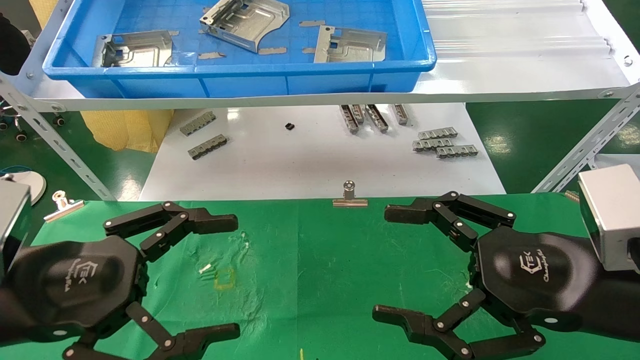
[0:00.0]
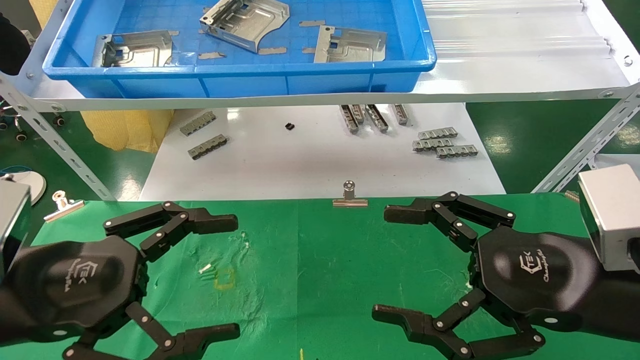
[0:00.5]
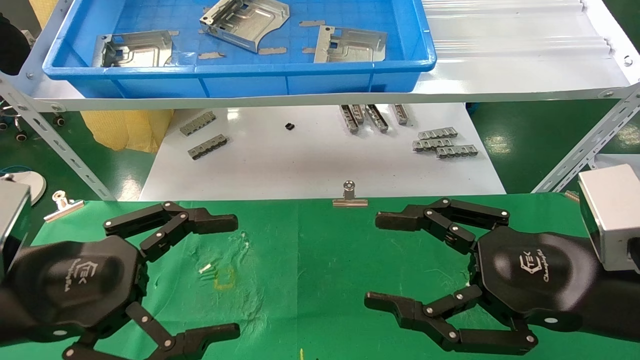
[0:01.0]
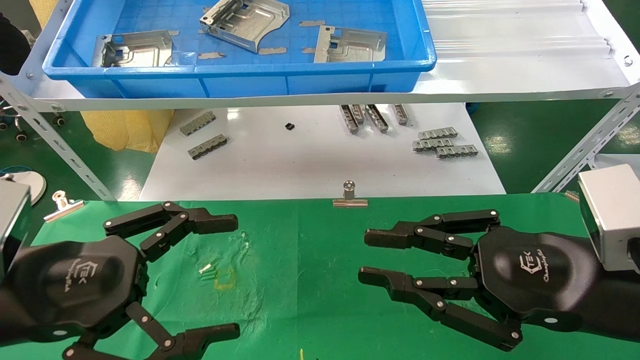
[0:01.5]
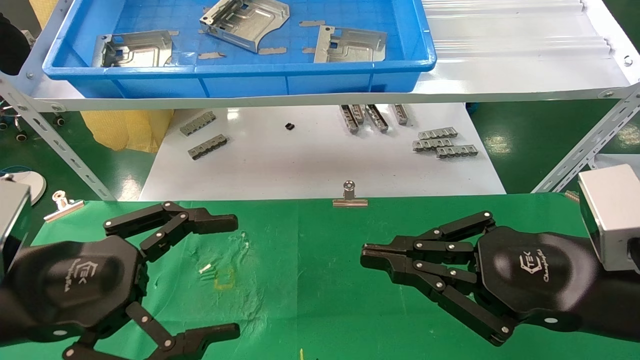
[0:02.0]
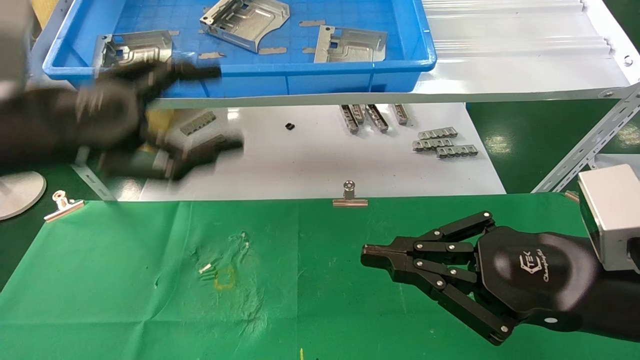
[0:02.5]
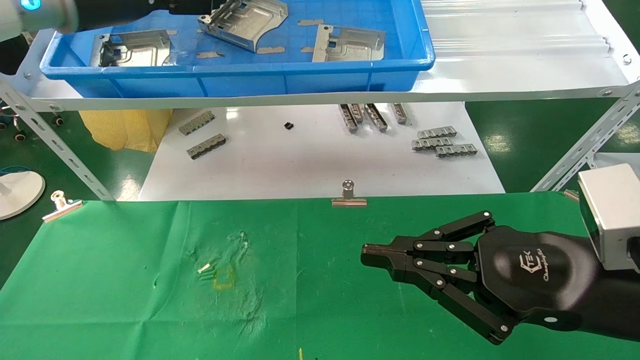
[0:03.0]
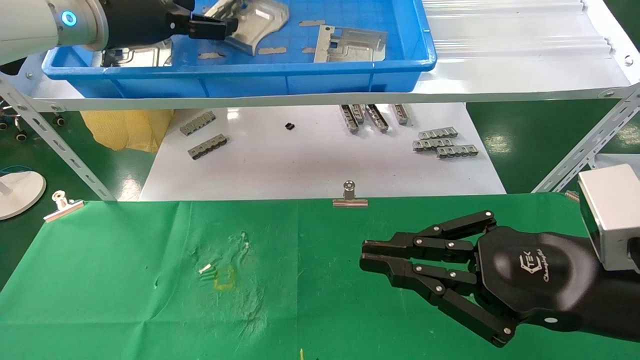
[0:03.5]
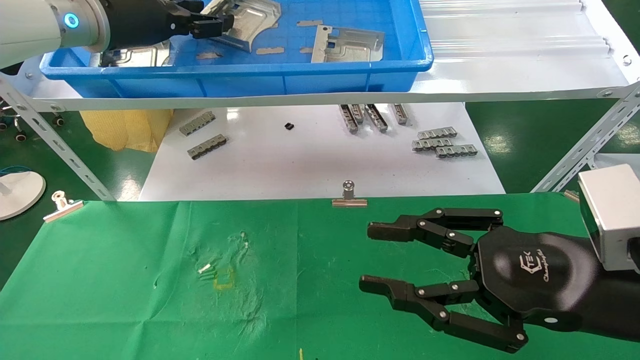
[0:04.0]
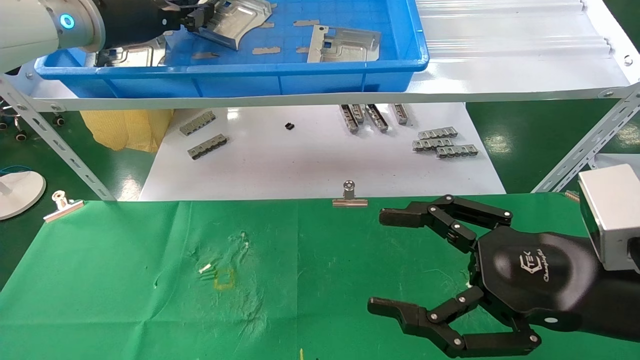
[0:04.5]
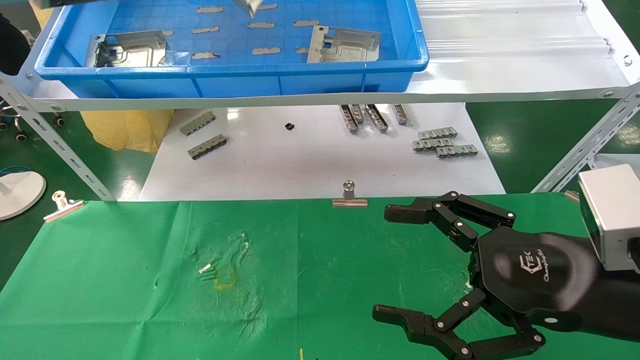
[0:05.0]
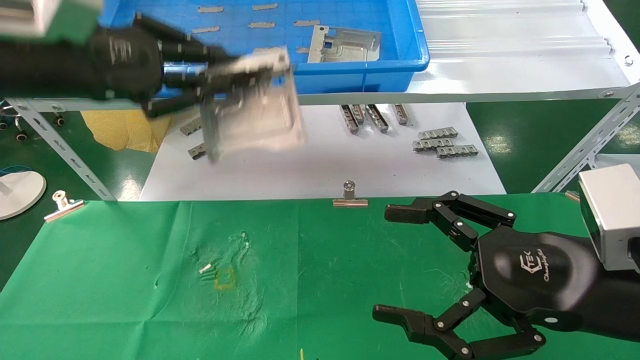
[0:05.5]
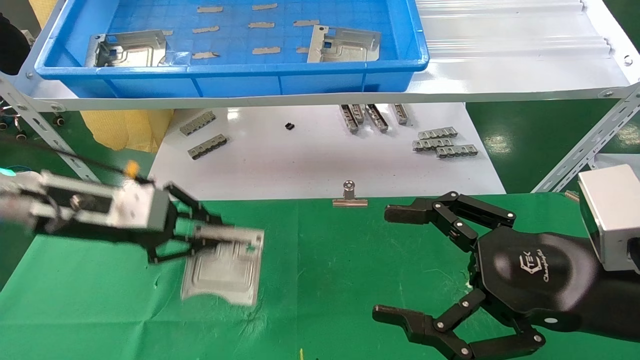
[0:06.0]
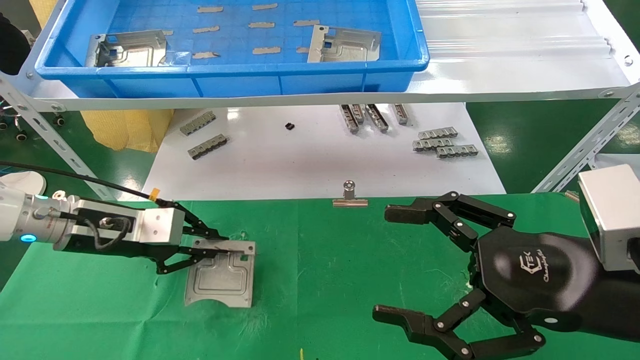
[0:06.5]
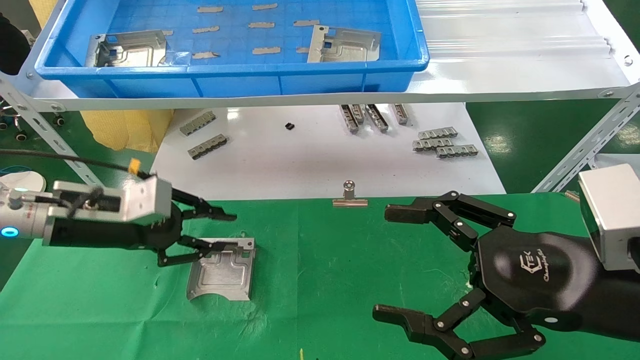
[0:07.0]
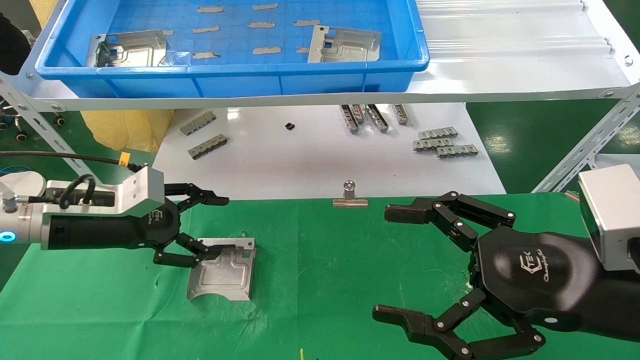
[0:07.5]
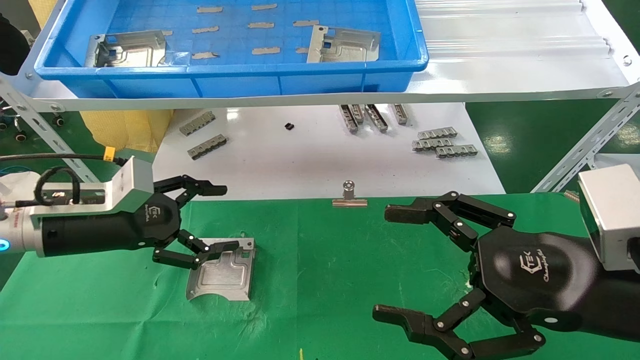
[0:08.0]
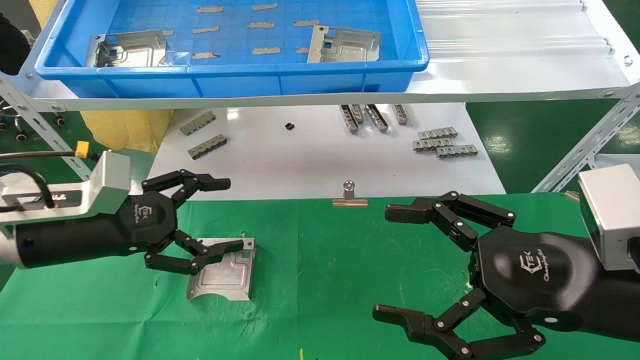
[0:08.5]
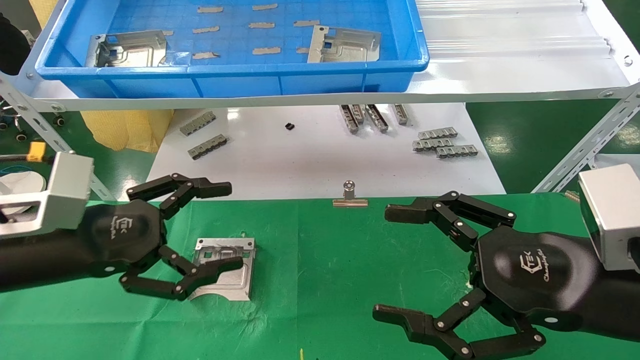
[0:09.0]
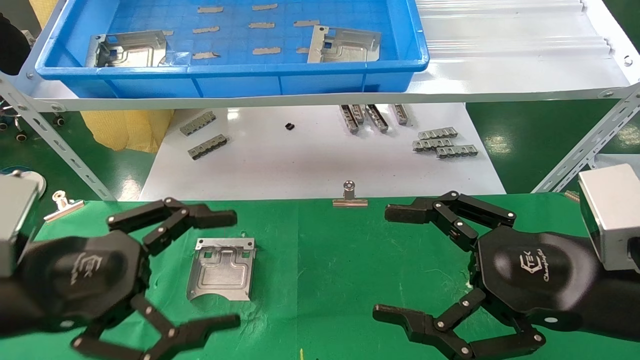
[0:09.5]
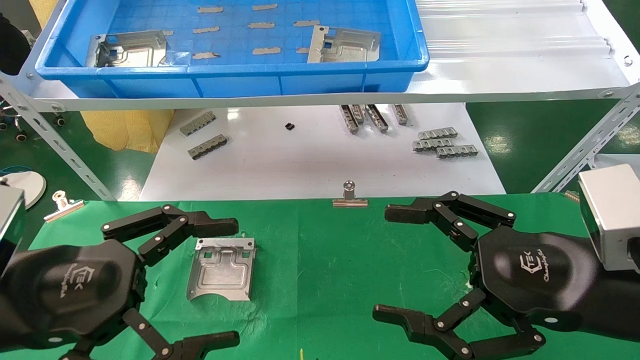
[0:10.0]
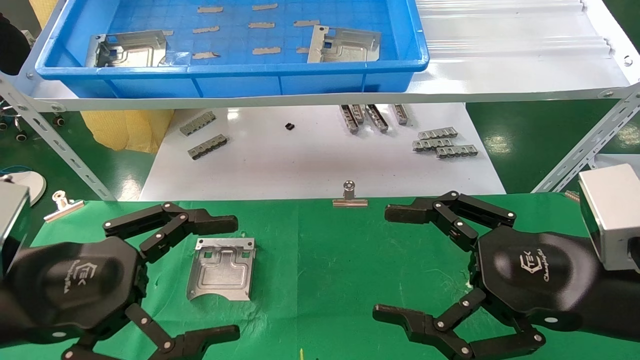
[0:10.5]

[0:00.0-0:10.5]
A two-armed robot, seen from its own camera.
Task of the whole recording: use the mechanical arm to pick up the parts and place them on the table.
Step, 0:02.5 to 0:04.0: Pick up the hard drive bracket from the feeding area.
Step, 0:04.5 to 0:07.0: Place the hard drive bracket into the box.
0:00.0 to 0:02.0: The right gripper closes.
0:02.0 to 0:04.0: The left gripper travels forward and upward by roughly 30 cm, and closes.
0:04.0 to 0:06.5: The right gripper opens up; the left gripper goes about 25 cm downward, and closes.
0:06.5 to 0:08.5: The left gripper travels backward by about 5 cm, and opens its fingers.
0:08.5 to 0:10.5: The left gripper moves backward, about 10 cm.

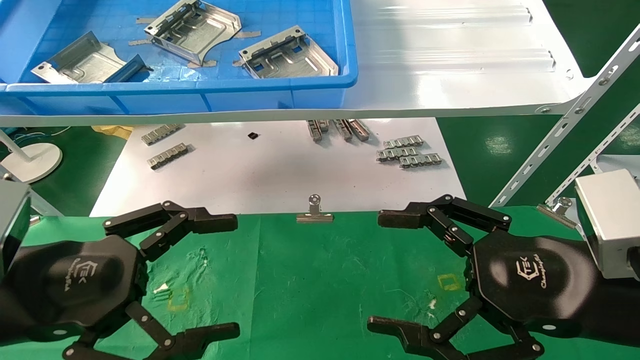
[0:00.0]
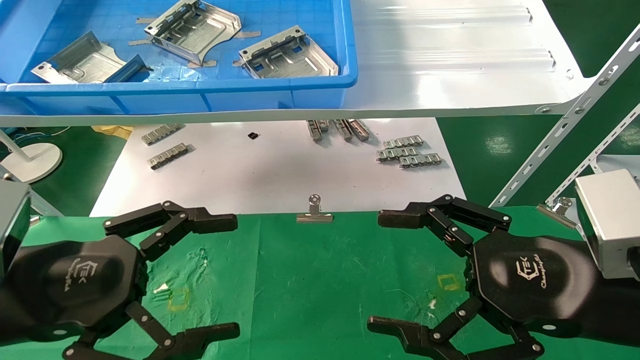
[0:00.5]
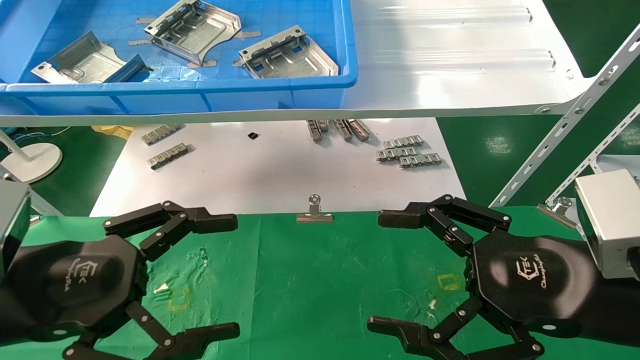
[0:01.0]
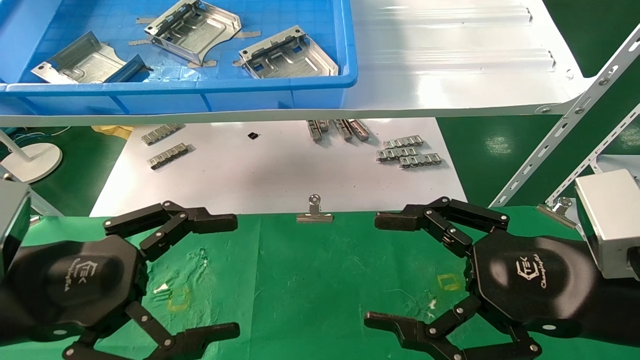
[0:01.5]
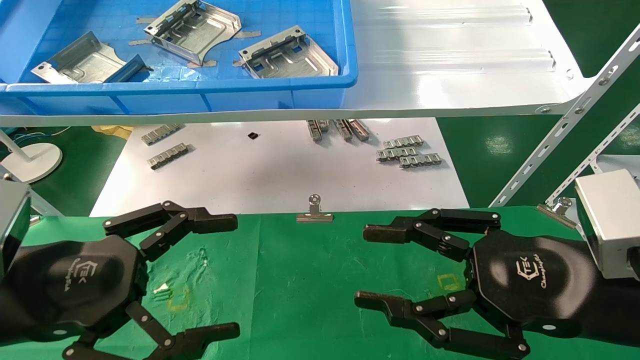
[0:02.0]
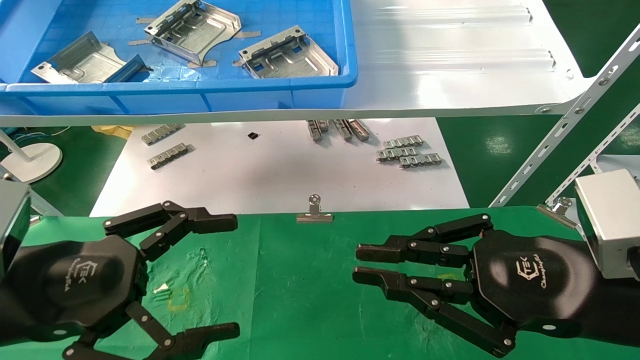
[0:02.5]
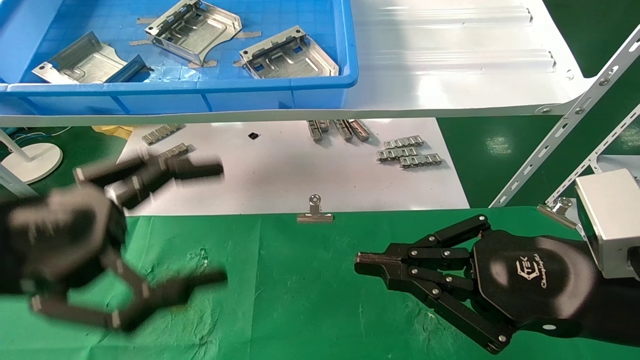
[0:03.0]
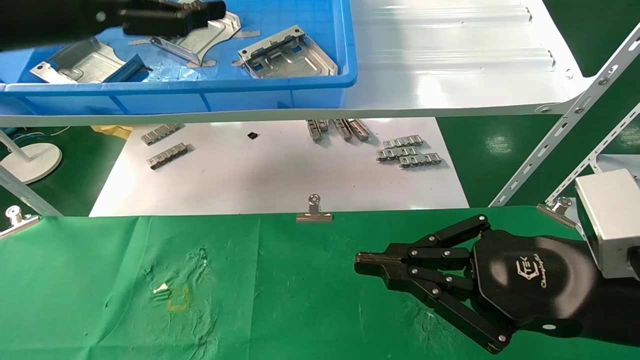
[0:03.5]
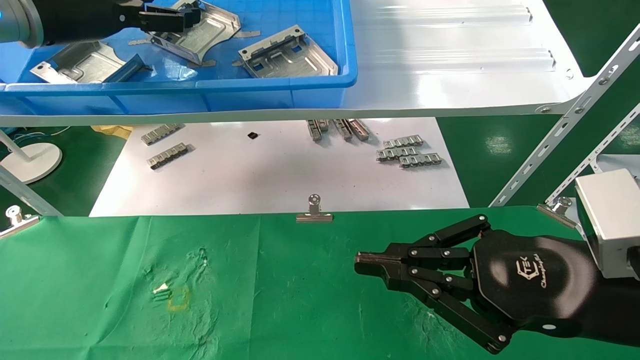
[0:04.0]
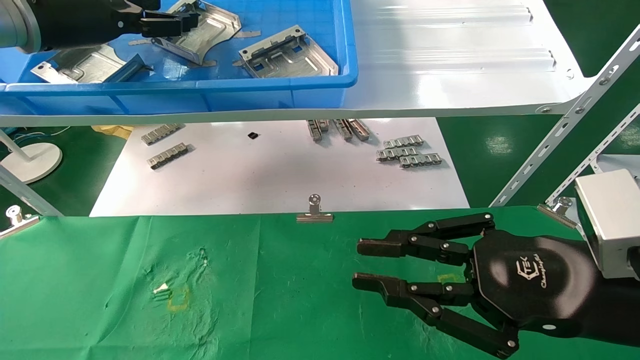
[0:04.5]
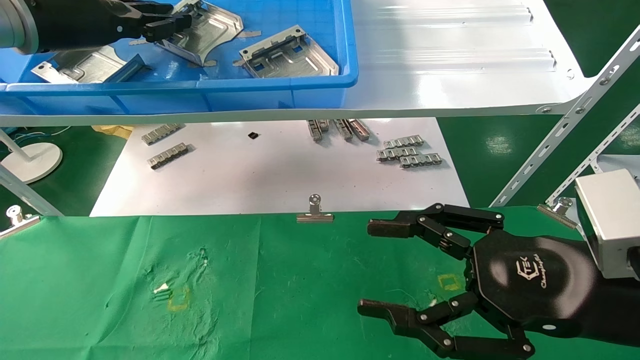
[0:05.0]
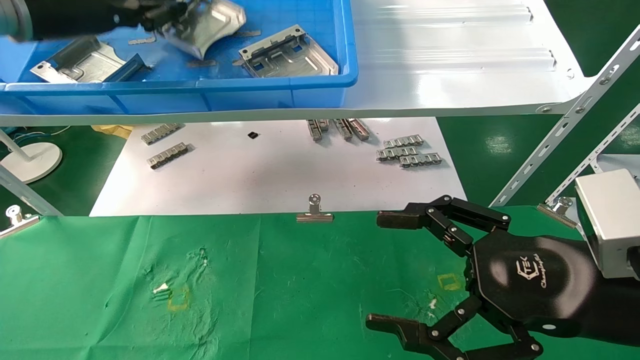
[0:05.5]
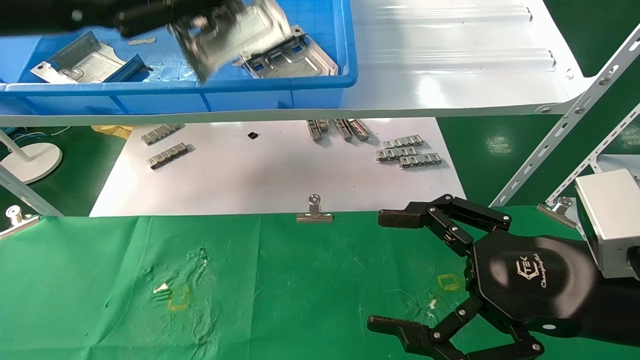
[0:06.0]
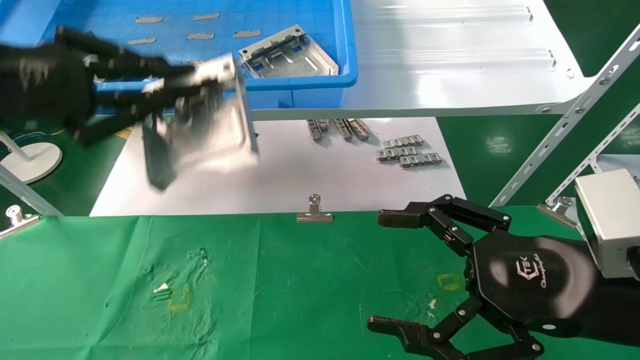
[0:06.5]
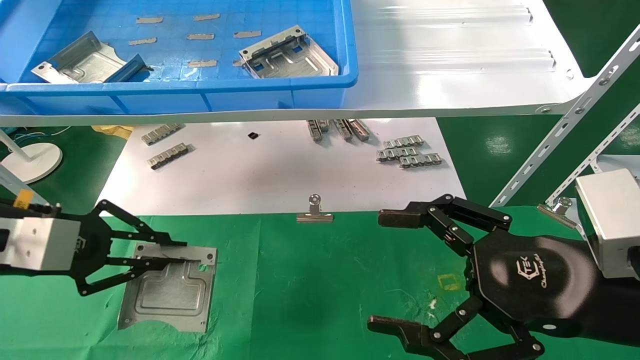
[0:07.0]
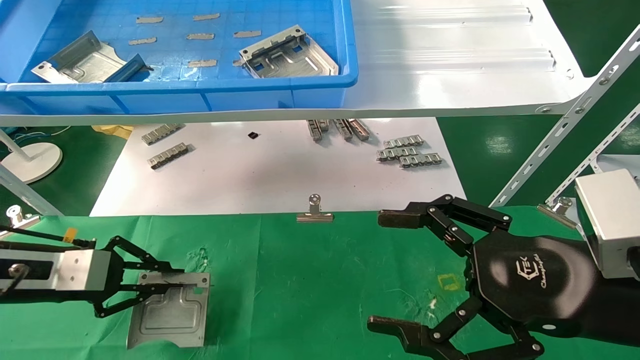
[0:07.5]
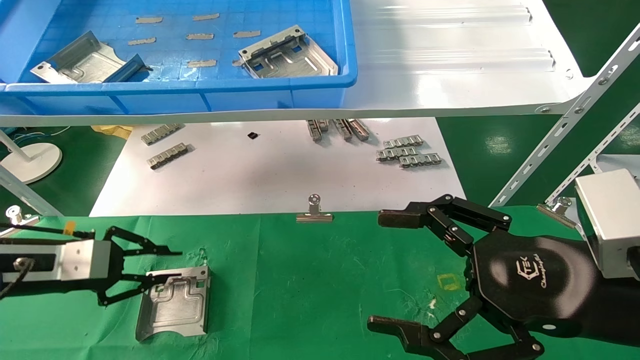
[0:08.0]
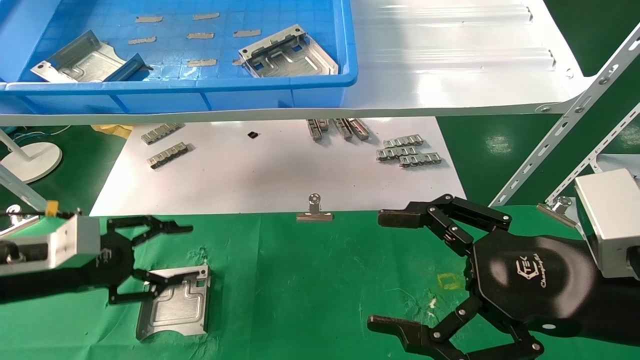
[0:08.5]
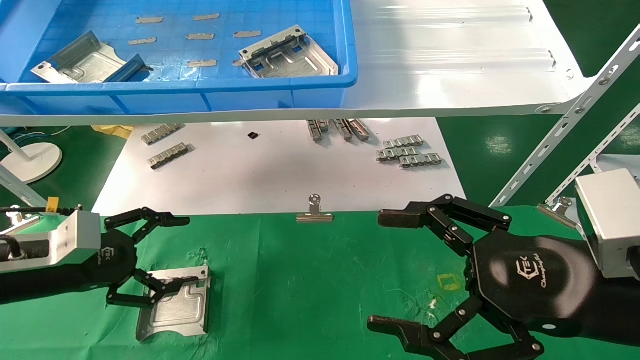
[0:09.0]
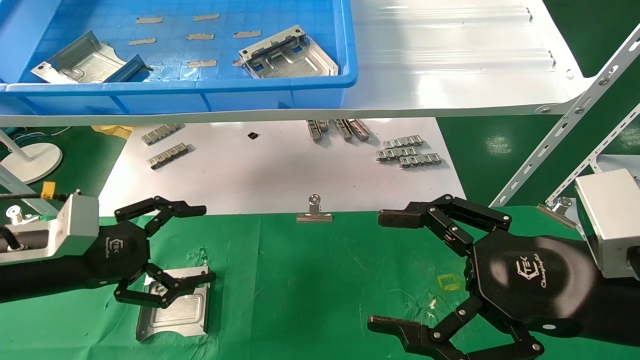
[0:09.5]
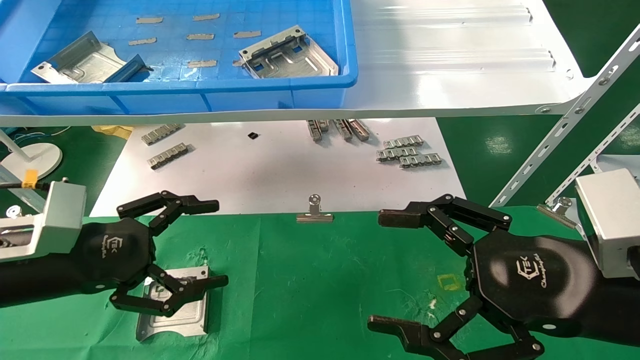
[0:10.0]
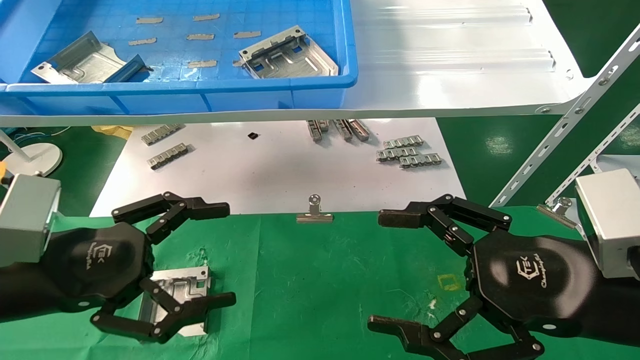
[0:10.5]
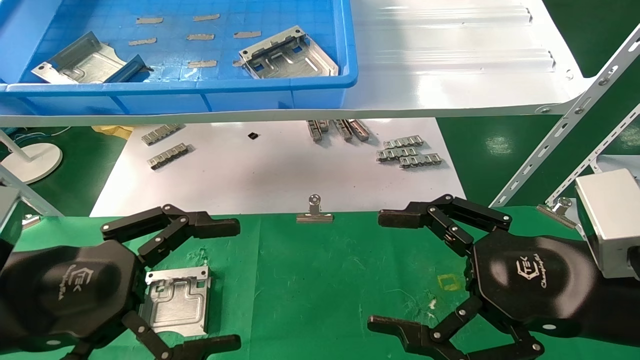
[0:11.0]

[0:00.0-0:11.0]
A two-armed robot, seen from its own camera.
Task of the whole recording: use the mechanical arm to pick up the parts and place them on the table.
Step, 0:03.5 to 0:05.0: Pick up the hard drive bracket from the feeding area.
Step, 0:05.5 to 0:08.0: Place the hard drive bracket into the box.
0:00.0 to 0:02.0: The right gripper closes its fingers.
0:02.0 to 0:03.5: The left gripper travels upward and forward by some 25 cm. The right gripper closes.
0:03.5 to 0:05.5: The right gripper opens up; the left gripper moves forward, roughly 5 cm, and closes up.
0:05.5 to 0:07.5: The left gripper goes roughly 30 cm downward.
0:07.5 to 0:09.0: The left gripper opens up.
0:09.0 to 0:11.0: The left gripper goes approximately 15 cm backward, to the right and upward.
